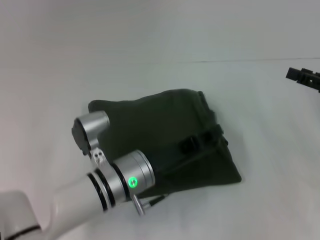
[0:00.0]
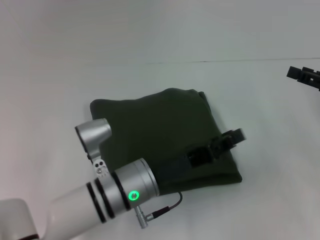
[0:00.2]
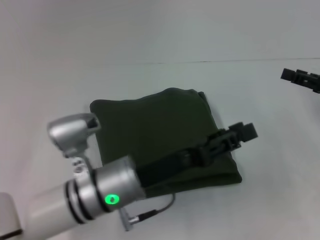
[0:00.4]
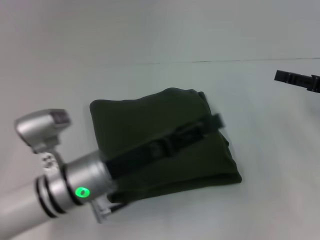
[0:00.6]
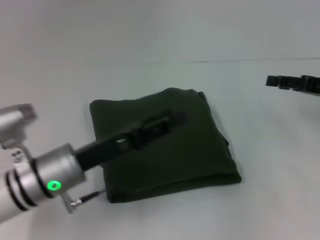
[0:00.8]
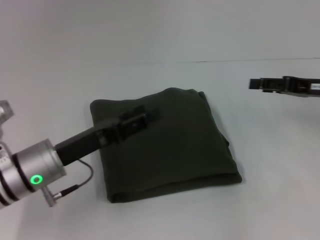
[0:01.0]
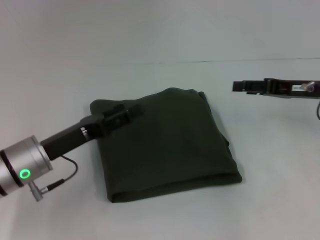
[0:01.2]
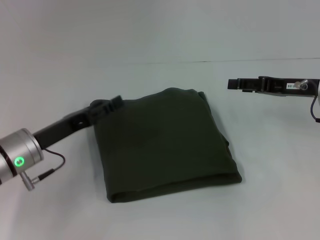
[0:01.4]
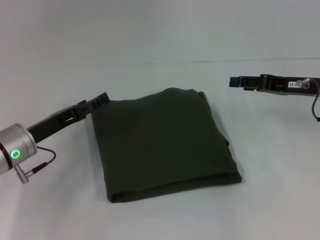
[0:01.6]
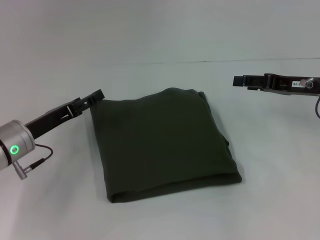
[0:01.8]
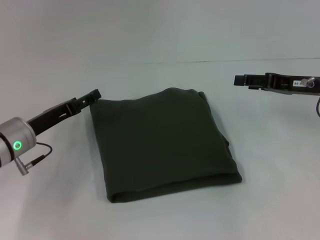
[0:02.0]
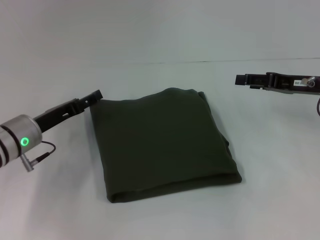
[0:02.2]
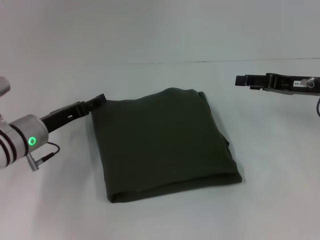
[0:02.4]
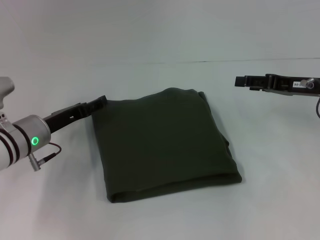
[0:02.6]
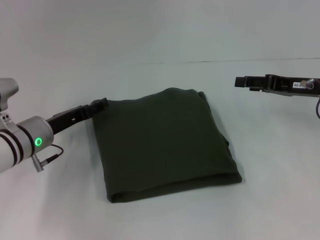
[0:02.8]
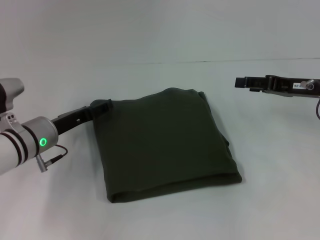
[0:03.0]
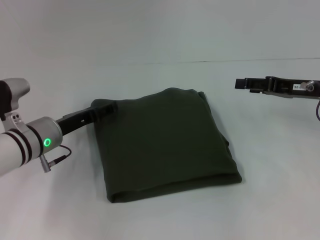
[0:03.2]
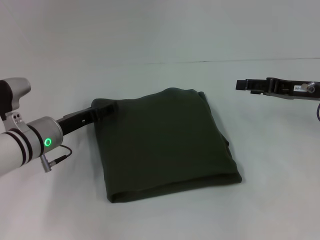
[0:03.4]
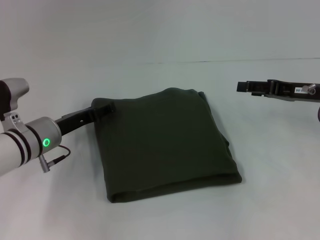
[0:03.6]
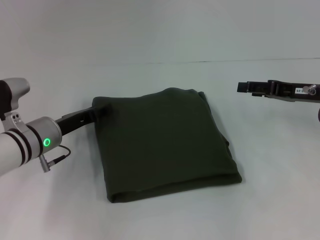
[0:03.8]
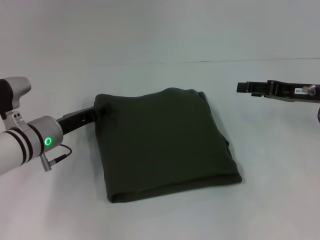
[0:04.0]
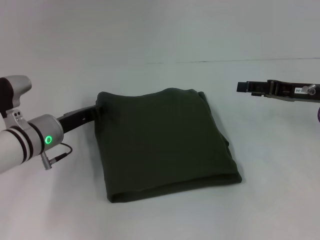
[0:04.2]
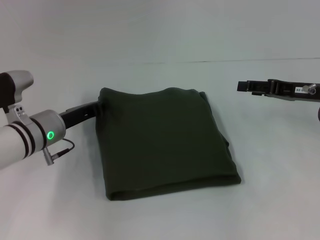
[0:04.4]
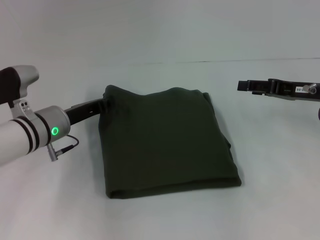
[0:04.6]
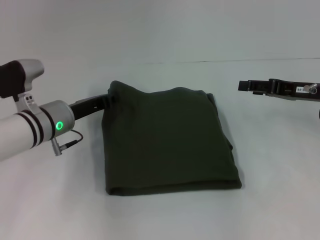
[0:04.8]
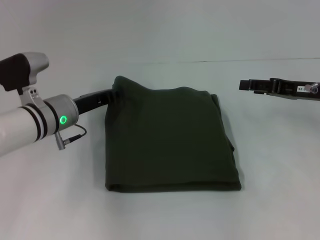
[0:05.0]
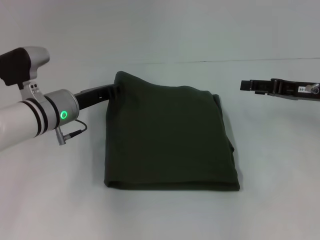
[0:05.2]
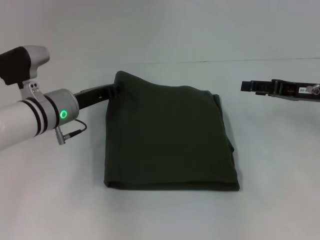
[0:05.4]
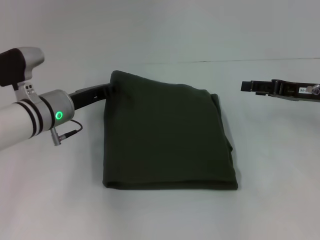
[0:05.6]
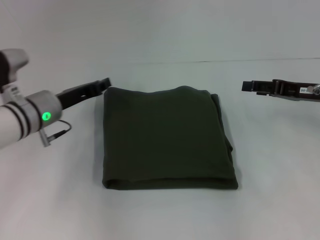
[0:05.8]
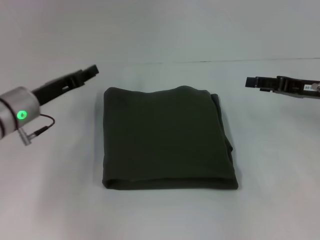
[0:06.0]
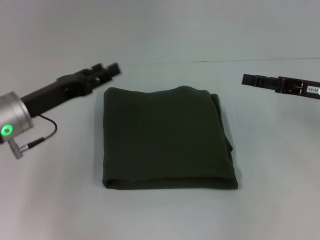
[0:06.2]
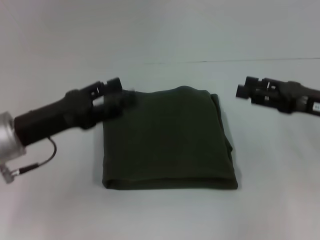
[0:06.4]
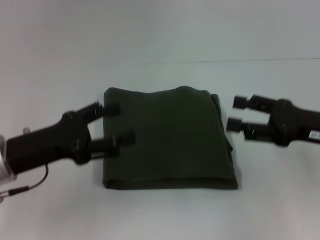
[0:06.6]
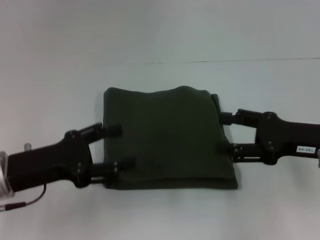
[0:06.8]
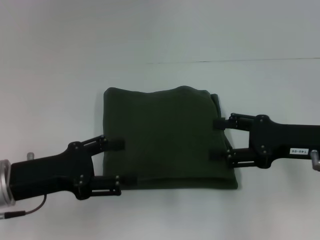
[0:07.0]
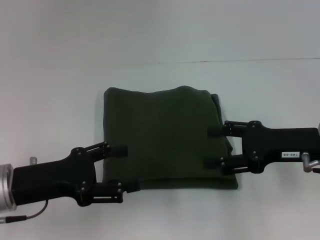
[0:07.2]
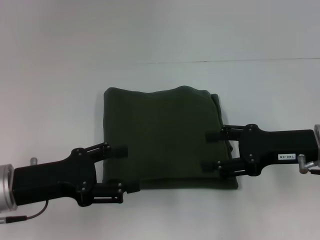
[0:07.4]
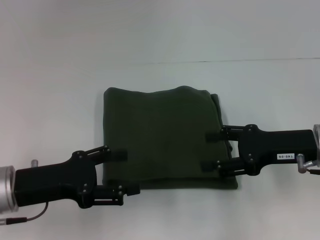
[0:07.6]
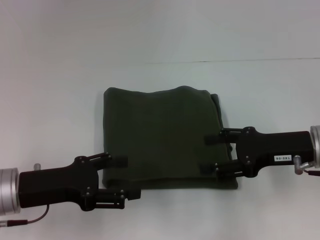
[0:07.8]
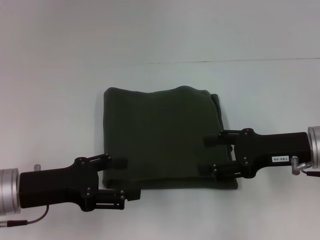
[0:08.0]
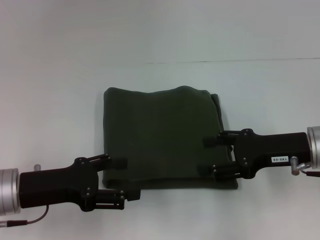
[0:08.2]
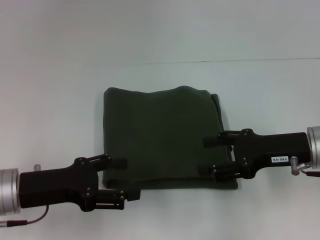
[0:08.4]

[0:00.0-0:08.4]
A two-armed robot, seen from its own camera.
0.0 to 1.4 s: The left gripper is displaced to the left by approximately 15 cm, and opens its fingers. The right gripper goes about 10 cm to the left and forward.
1.4 to 2.8 s: The left gripper moves roughly 5 cm.
2.8 to 4.2 s: The left gripper closes its fingers.
4.2 to 5.6 s: The grippers stay close to where they were, moving slightly.
5.6 to 7.0 s: The right gripper shifts about 10 cm backward, while the left gripper goes some 15 cm backward, and opens up.
7.0 to 8.4 s: The grippers make only small movements.

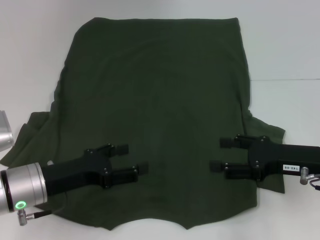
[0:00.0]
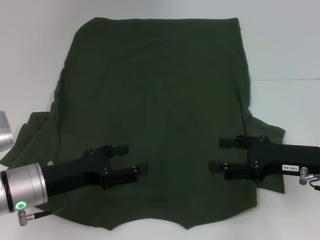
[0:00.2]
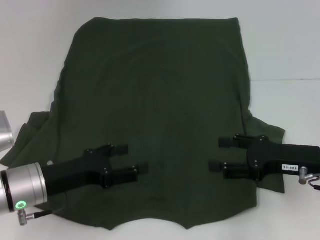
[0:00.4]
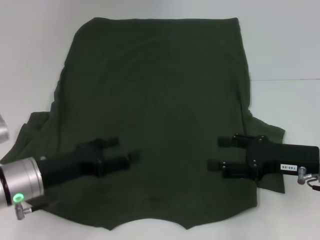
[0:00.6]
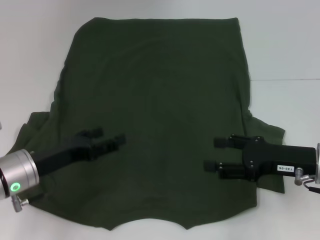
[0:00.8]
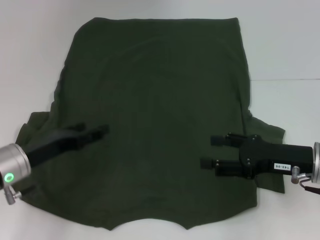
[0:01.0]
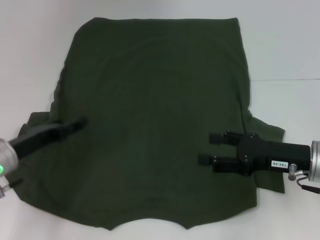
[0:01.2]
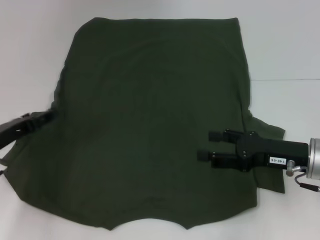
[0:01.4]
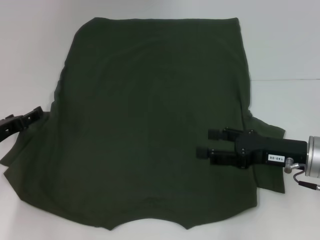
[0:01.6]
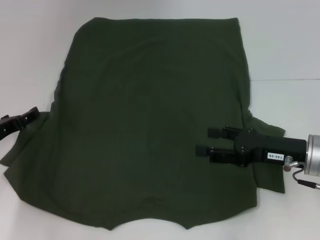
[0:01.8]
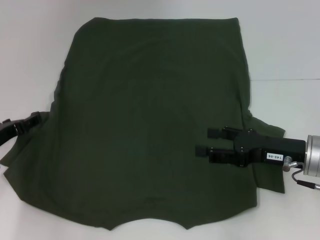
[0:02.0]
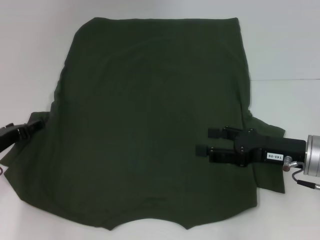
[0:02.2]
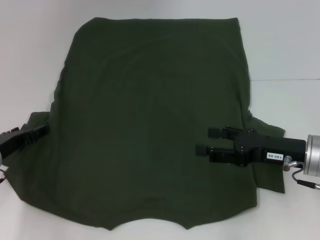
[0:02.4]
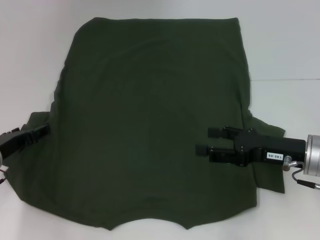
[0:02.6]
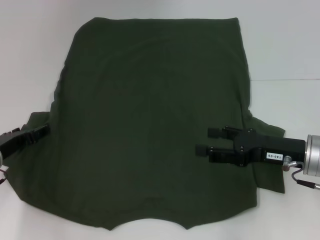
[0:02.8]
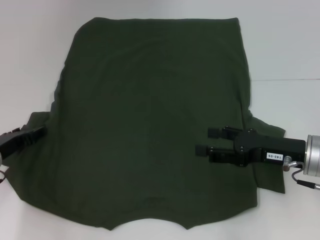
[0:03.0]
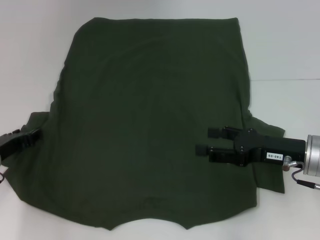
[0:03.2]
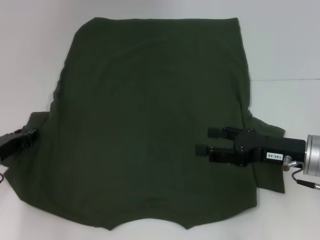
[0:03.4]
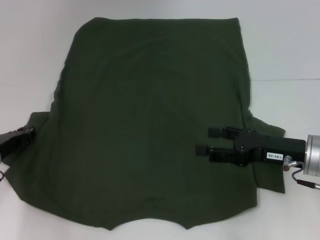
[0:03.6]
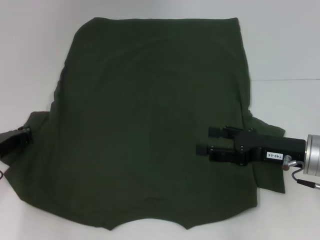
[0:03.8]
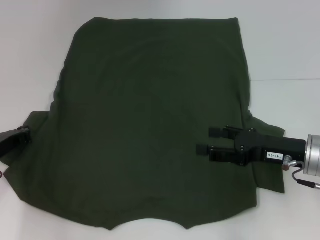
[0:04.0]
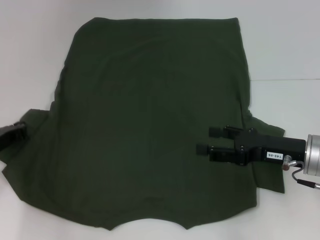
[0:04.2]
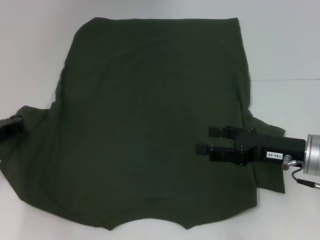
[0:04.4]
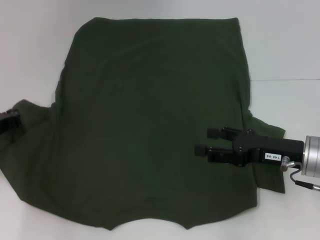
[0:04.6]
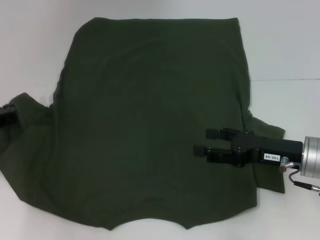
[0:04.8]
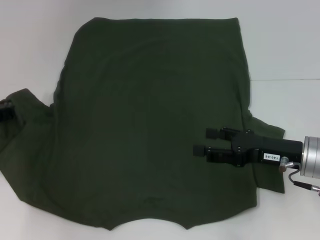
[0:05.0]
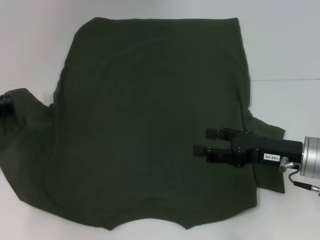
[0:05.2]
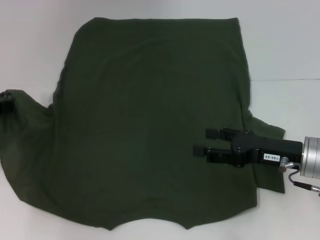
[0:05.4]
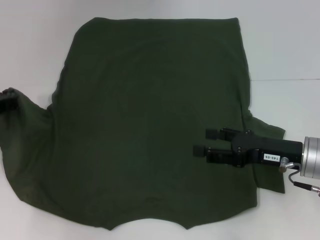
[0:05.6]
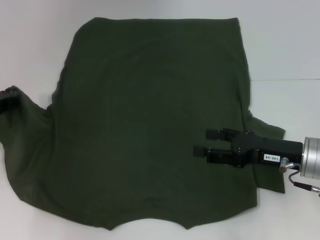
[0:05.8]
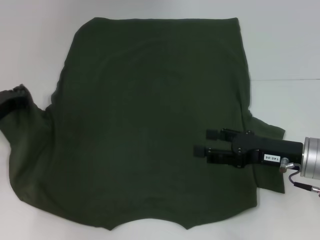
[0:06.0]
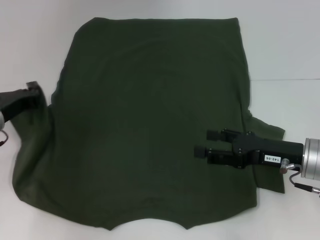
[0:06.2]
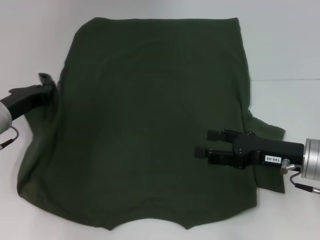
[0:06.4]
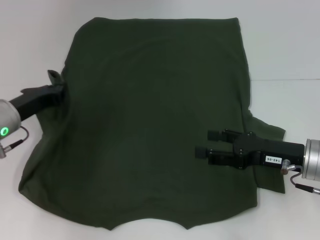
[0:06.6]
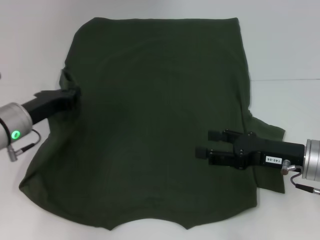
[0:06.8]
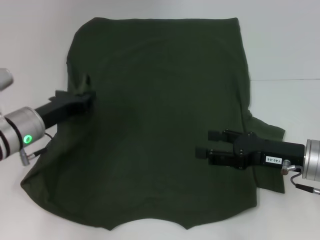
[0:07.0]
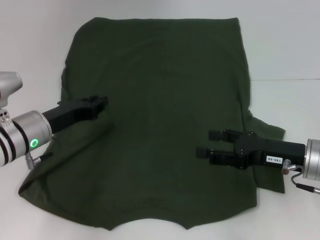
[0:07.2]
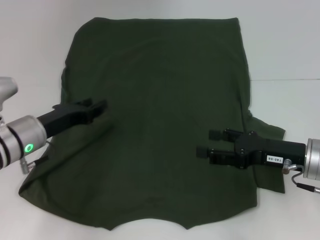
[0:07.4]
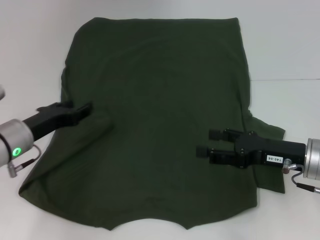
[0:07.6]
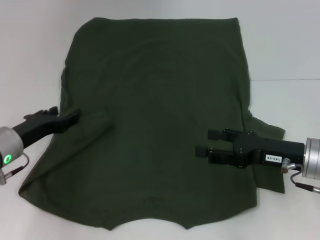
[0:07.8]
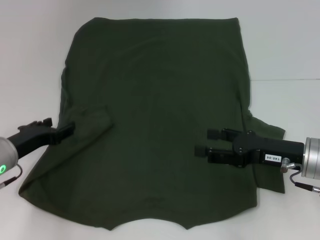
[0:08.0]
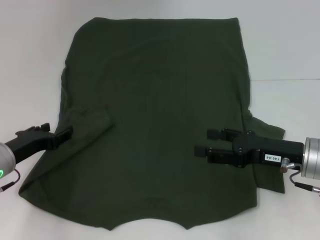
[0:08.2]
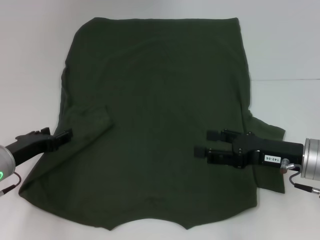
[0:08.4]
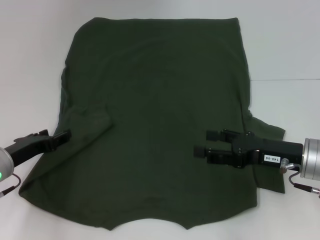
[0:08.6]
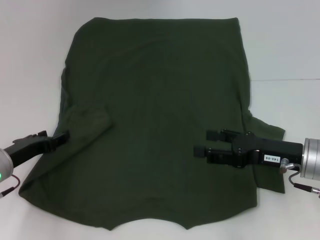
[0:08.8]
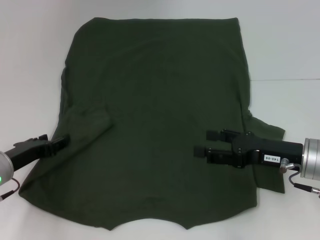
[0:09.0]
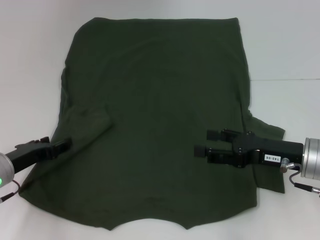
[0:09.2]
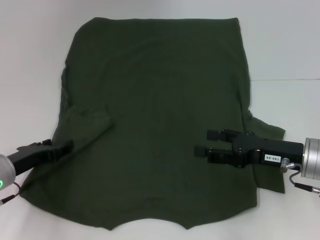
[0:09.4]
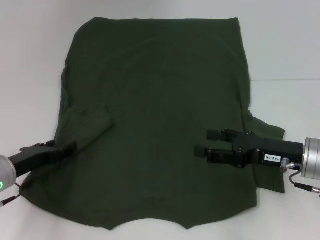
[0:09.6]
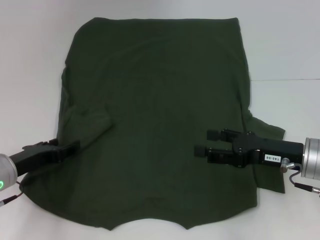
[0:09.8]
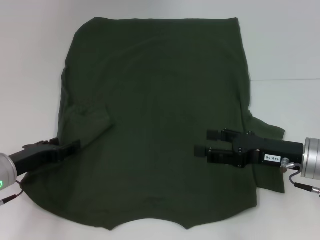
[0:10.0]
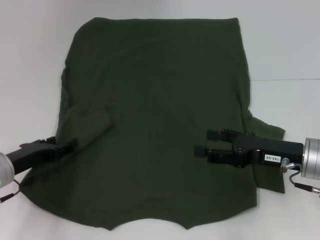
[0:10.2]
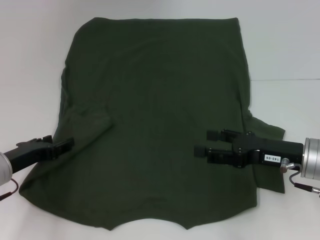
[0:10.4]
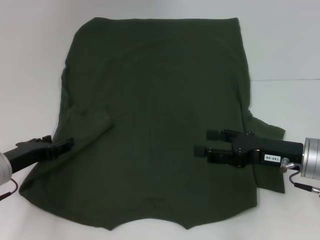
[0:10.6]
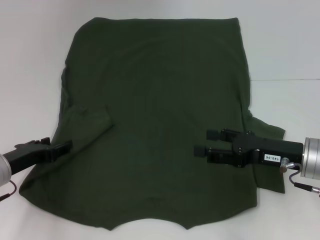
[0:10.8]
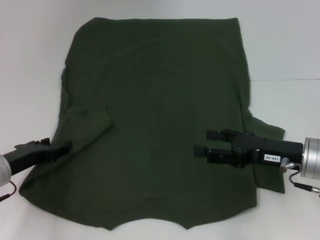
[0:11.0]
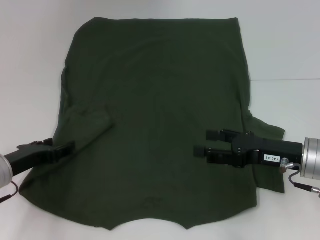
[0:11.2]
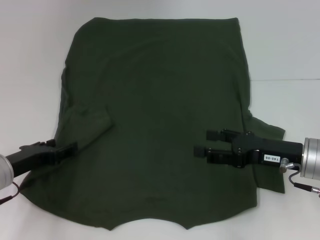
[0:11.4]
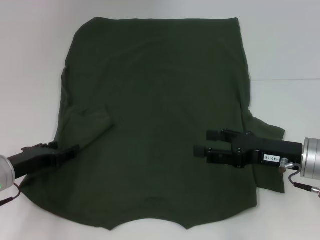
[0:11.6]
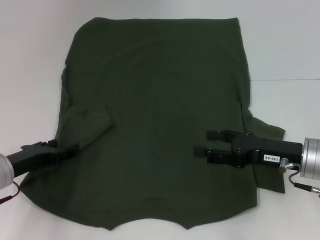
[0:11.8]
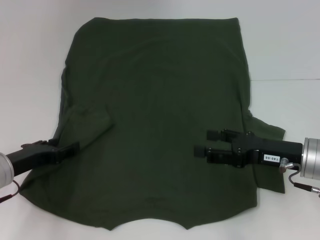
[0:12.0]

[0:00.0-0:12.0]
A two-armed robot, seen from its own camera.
0.0 to 1.6 s: The left gripper shifts roughly 10 cm to the left and forward.
1.6 to 3.0 s: The grippers make only small movements.
3.0 to 4.4 s: The left gripper closes.
4.4 to 6.0 s: There are only small adjustments of the grippers.
6.0 to 7.6 s: The left gripper changes place by roughly 5 cm, and opens up.
7.6 to 9.0 s: The left gripper moves some 5 cm.
9.0 to 10.4 s: The grippers make only small movements.
10.4 to 12.0 s: The two grippers keep their place.

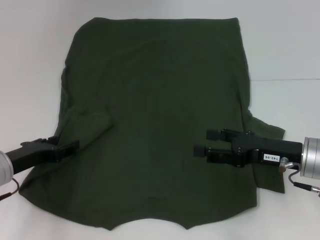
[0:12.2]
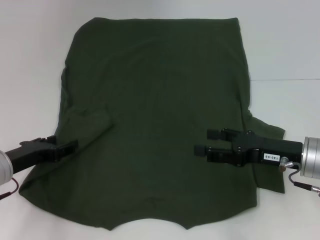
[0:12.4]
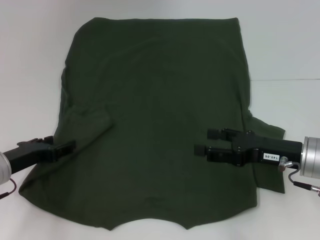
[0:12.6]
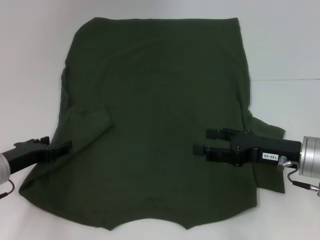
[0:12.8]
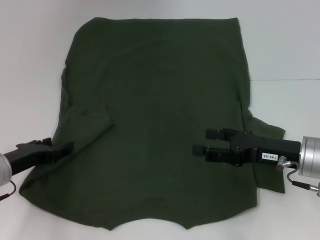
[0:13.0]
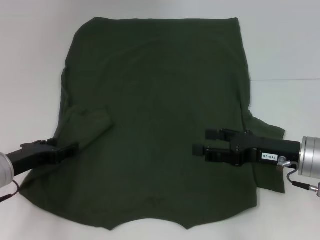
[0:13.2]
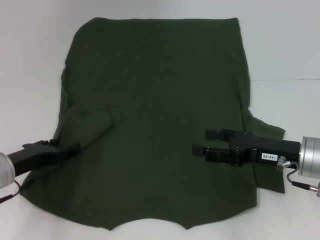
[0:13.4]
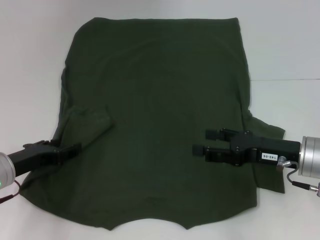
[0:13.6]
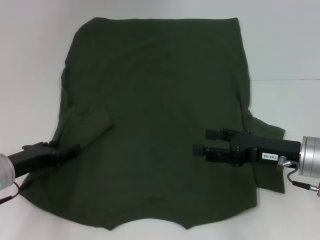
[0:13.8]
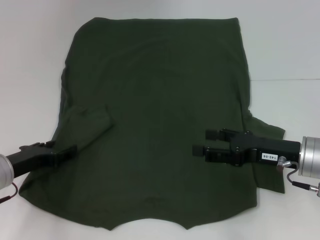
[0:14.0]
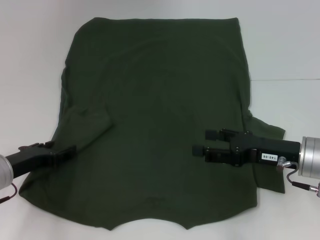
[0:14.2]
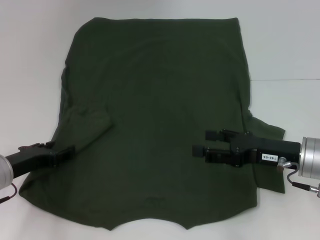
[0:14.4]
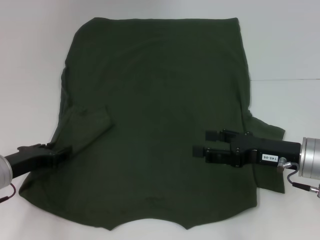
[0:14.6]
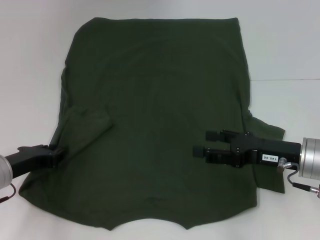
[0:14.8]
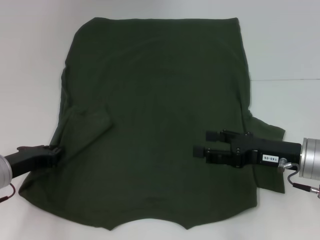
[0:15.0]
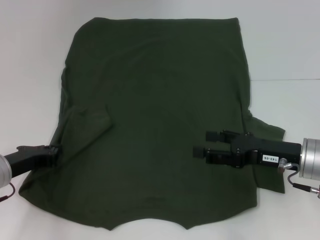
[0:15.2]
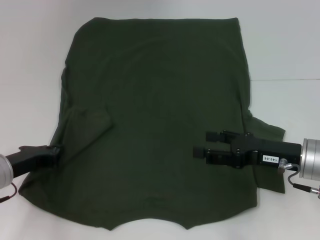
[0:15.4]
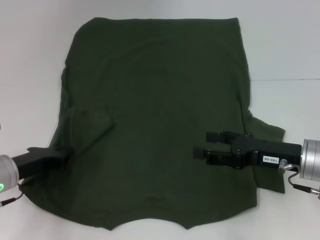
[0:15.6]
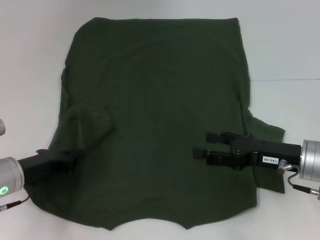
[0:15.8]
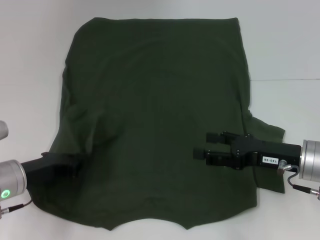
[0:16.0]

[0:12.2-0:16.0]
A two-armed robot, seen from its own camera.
12.2 to 14.8 s: Both grippers stay put.
14.8 to 16.0 s: The left gripper closes up.
